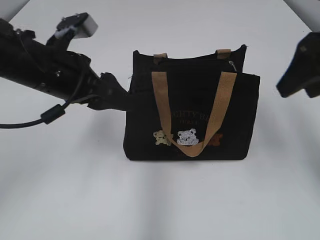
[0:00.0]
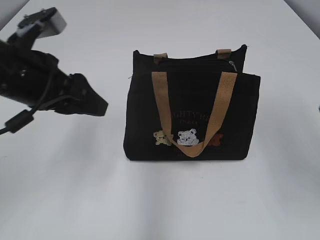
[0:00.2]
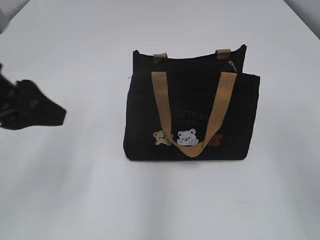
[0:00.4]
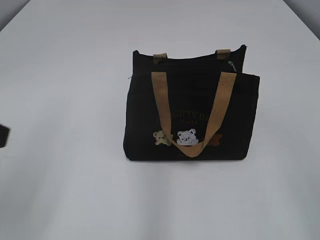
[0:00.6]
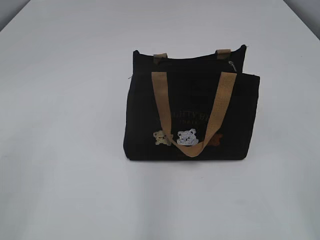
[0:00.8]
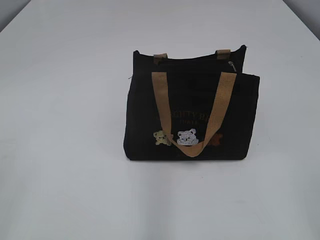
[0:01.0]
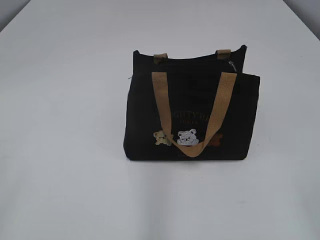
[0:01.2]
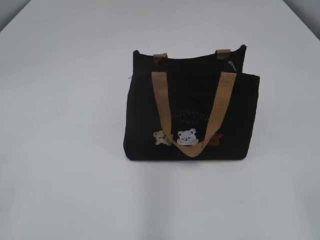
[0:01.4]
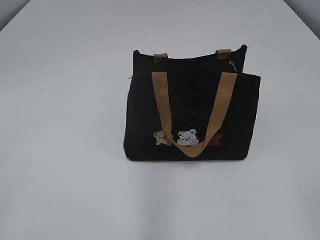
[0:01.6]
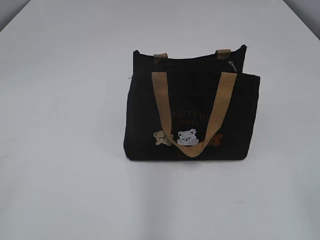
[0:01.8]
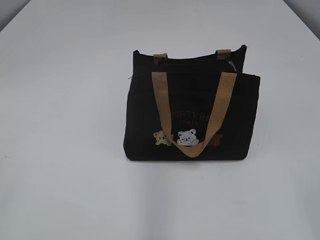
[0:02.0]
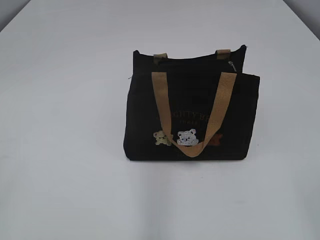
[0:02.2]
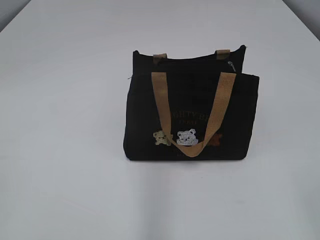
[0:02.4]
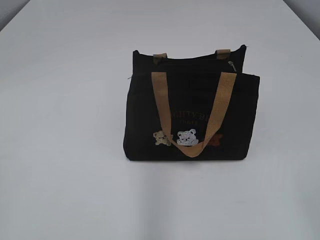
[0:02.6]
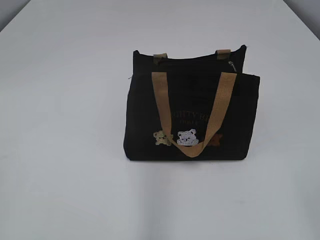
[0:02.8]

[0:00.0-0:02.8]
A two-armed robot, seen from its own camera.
0:00.0 to 0:01.4: The left gripper is displaced backward and to the left by about 35 cm; the right gripper shifts some 30 cm backward.

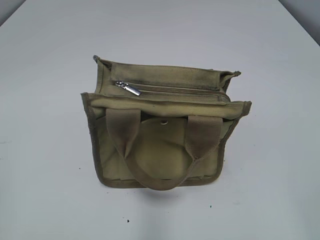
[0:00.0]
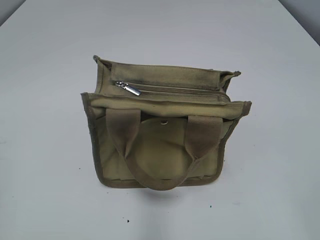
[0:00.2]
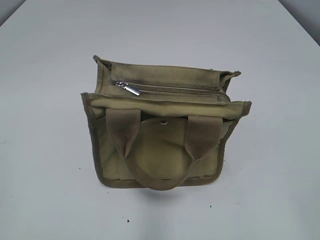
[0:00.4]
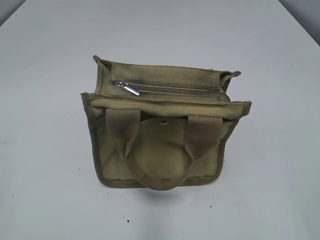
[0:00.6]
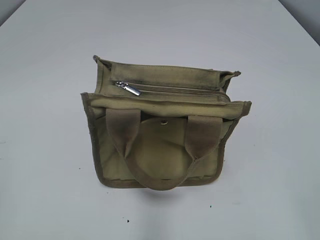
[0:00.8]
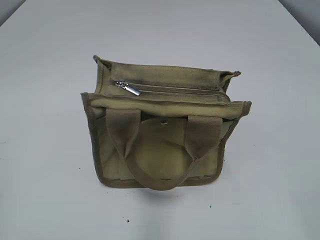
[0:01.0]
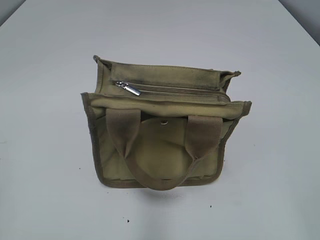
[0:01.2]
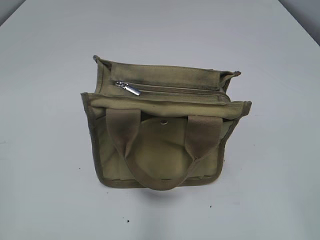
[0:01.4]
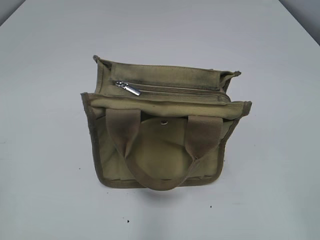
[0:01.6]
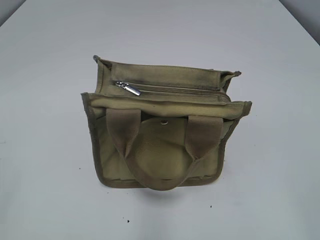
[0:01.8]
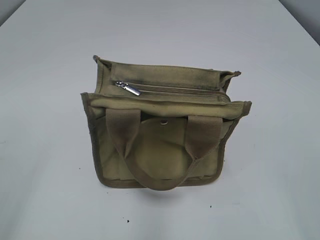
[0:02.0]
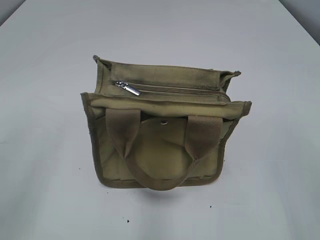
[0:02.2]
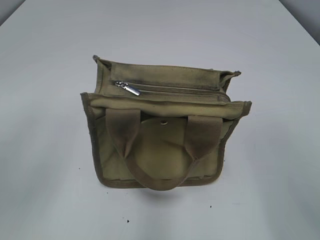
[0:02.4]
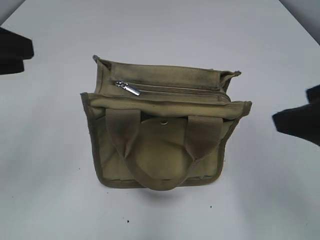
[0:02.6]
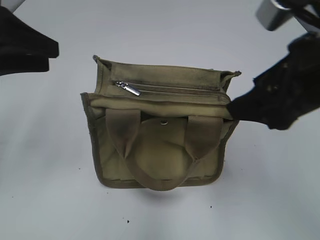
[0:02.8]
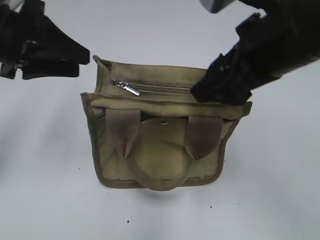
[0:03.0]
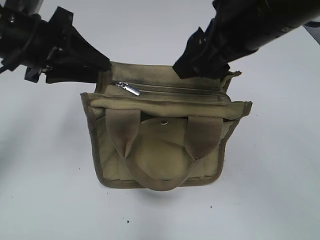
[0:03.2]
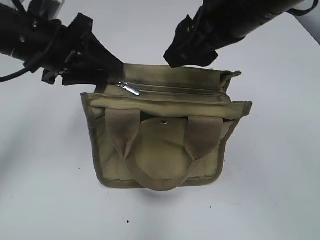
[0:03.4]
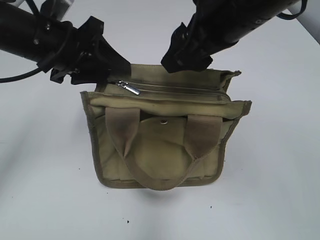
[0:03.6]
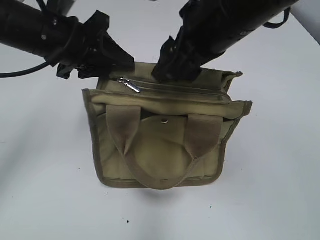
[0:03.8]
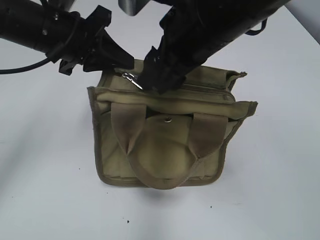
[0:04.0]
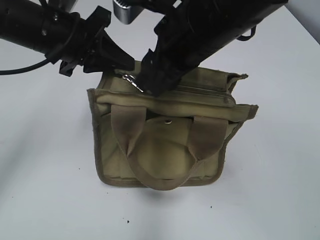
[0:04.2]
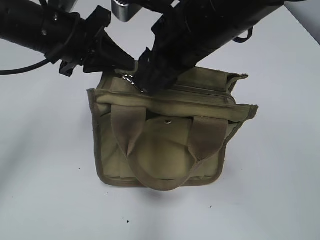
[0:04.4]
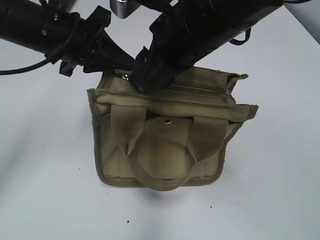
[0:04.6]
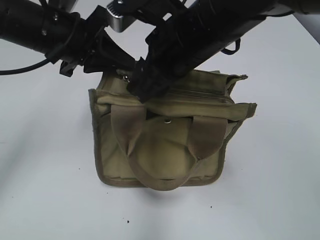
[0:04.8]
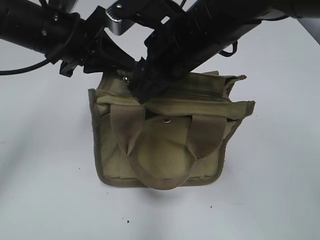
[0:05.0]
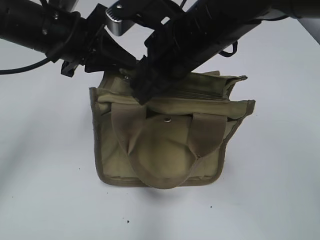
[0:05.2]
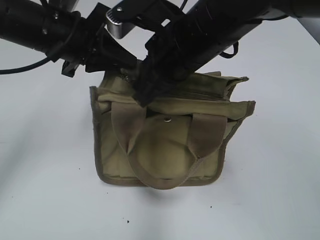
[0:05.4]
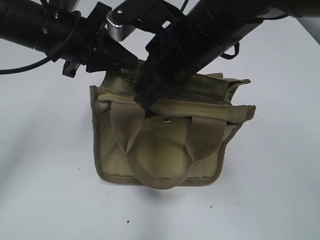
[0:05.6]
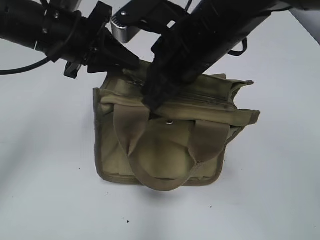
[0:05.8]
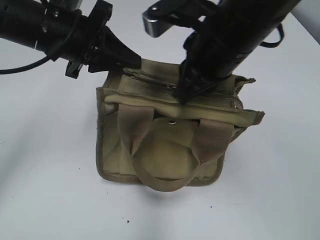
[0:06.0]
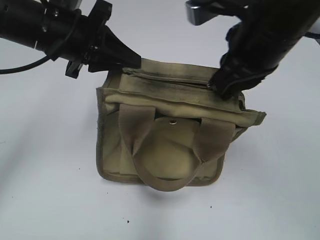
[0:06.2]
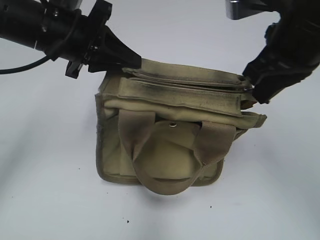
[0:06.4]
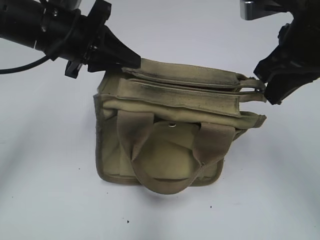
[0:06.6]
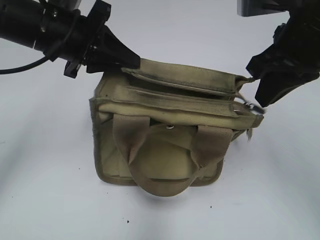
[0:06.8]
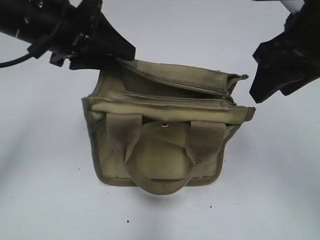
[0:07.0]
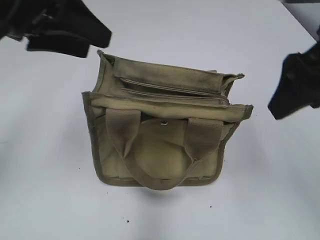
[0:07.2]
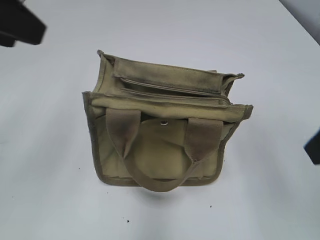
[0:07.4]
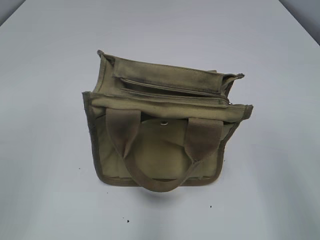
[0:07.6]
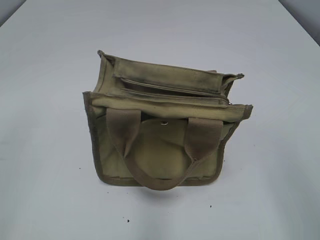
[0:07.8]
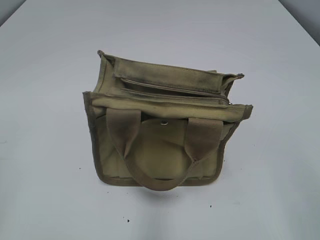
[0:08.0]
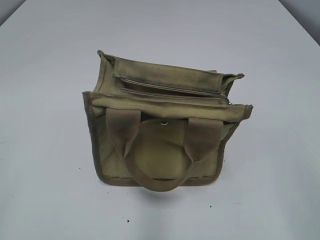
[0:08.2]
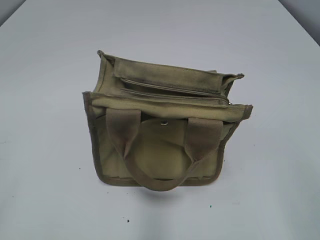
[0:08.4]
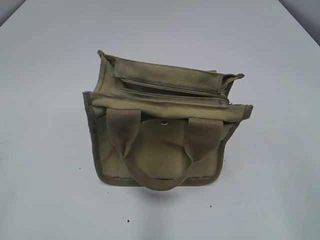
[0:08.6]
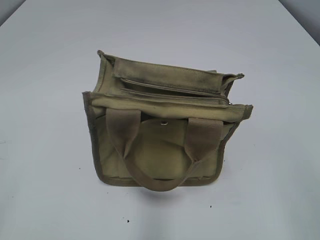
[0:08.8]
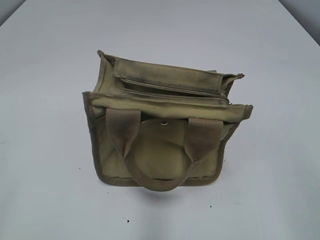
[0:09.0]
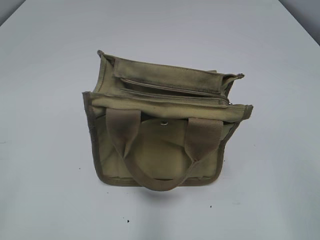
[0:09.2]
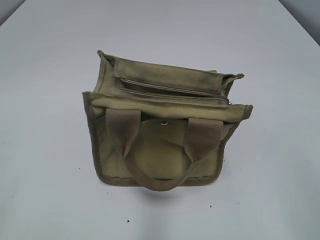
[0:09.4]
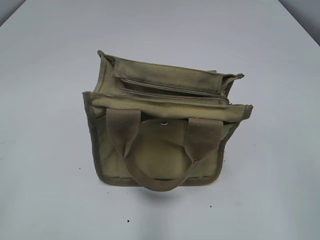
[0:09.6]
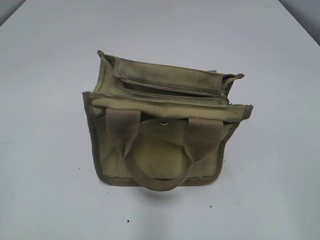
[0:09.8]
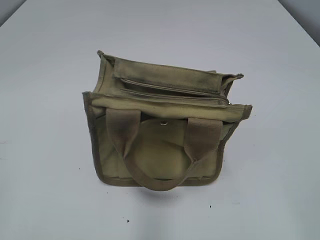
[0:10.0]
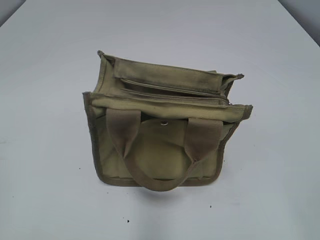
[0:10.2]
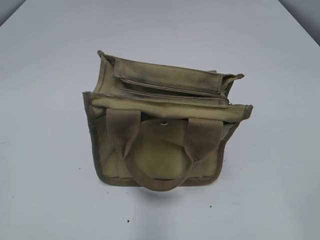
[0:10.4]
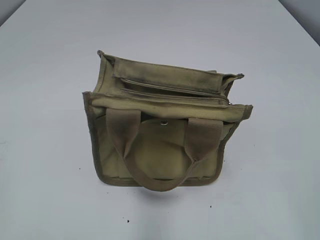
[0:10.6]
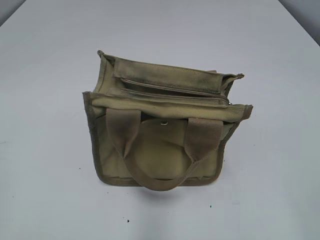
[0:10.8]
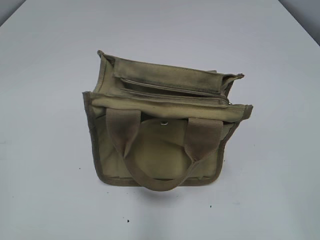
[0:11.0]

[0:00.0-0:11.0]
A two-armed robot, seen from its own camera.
Step, 0:00.0 to 0:06.8: Pull open the zipper with your right hand.
0:01.6 to 0:03.2: The right gripper shifts some 30 cm forward and to the left; the left gripper is displaced forward and to the right by approximately 30 cm.
0:03.2 to 0:04.8: The right gripper is displaced to the left and downward by some 10 cm; the left gripper shifts by some 5 cm, and closes.
0:04.8 to 0:06.2: The right gripper is displaced to the right by approximately 10 cm, and closes up.
0:06.2 to 0:07.8: The right gripper travels backward and to the right by some 25 cm, and opens; the left gripper moves backward and to the left, about 30 cm, and opens its fingers.
